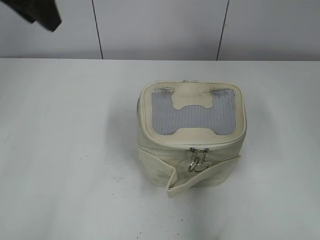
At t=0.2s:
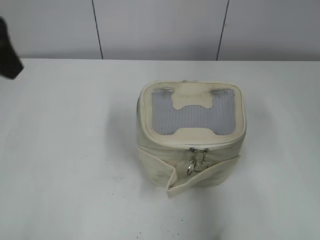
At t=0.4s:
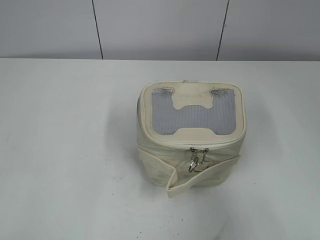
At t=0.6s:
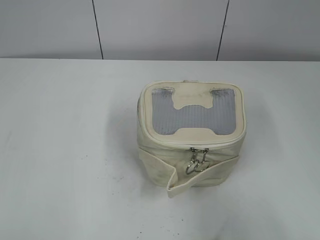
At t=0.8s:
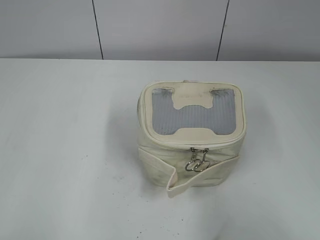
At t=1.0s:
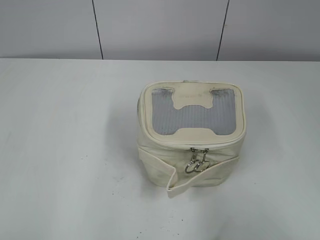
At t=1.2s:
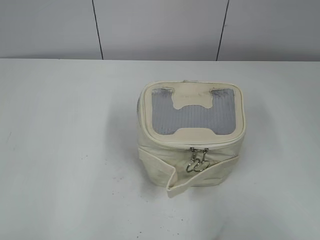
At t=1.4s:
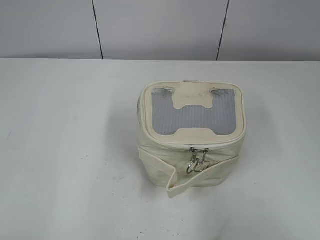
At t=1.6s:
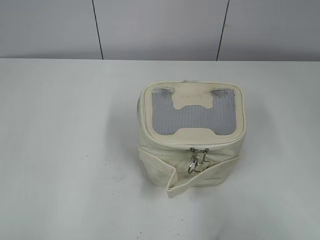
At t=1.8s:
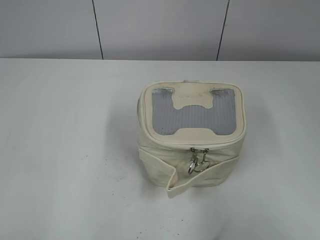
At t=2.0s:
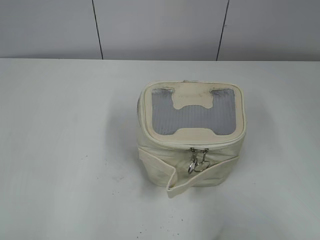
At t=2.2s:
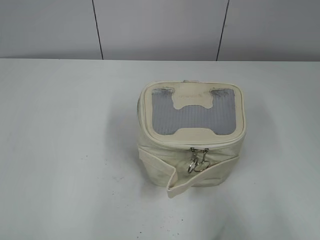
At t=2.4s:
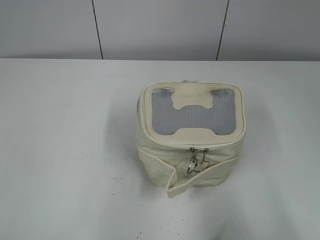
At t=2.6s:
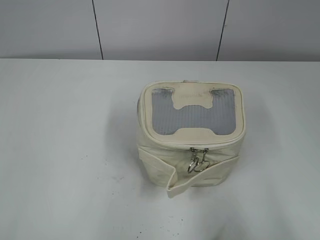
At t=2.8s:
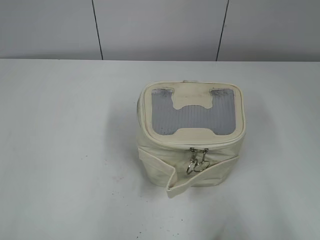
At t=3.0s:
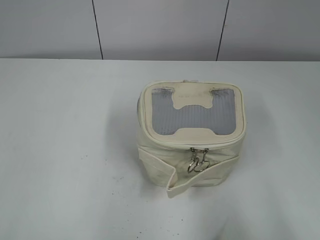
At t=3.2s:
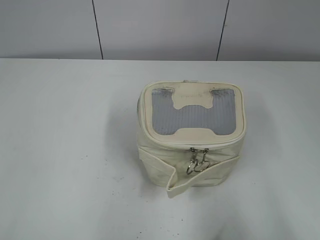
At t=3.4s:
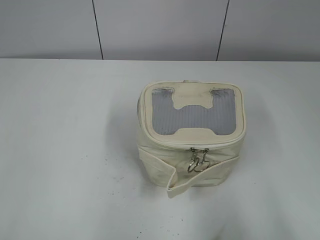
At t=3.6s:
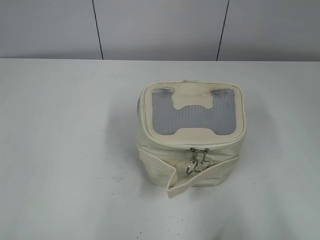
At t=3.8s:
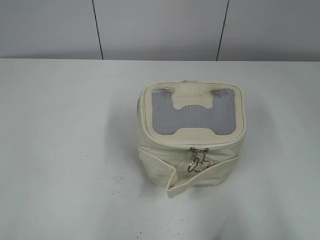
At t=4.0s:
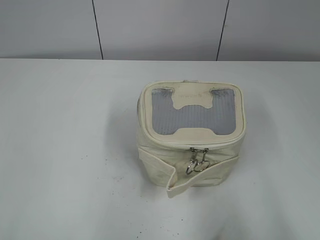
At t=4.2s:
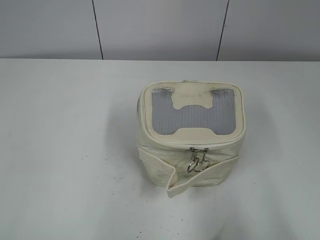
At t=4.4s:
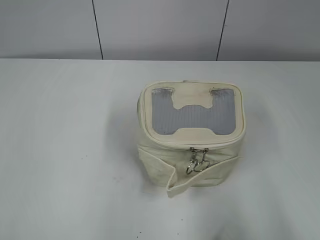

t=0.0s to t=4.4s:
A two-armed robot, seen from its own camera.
t=0.0s to t=1.4s: The right gripper shifts some 10 cm backward, while the left gripper goes about 30 cm backward and to the left.
t=3.0s to t=4.4s: Neither gripper changes place.
